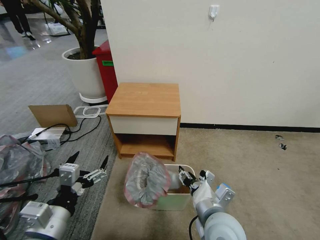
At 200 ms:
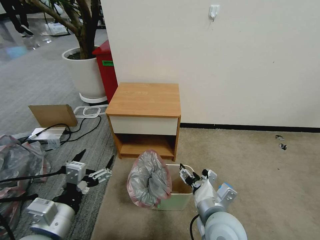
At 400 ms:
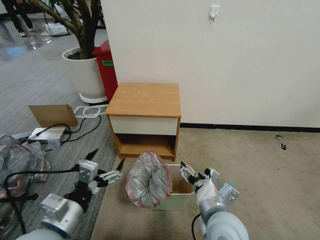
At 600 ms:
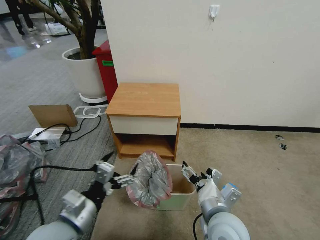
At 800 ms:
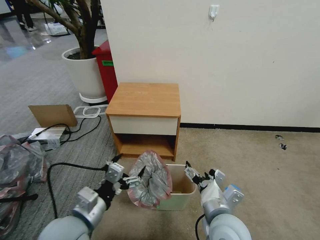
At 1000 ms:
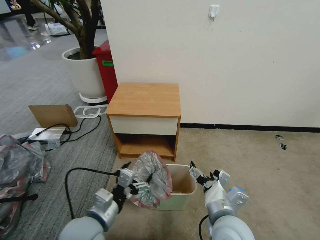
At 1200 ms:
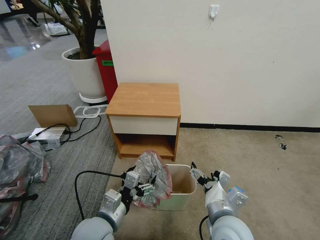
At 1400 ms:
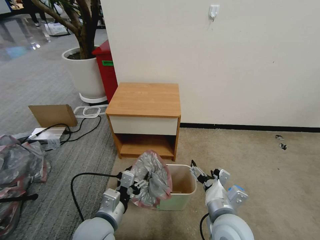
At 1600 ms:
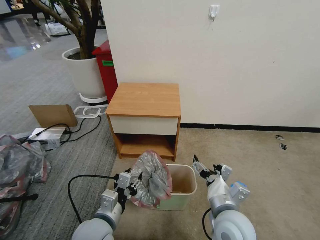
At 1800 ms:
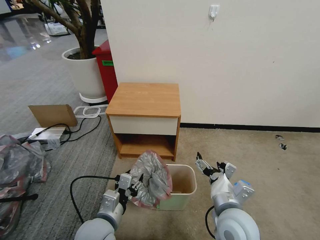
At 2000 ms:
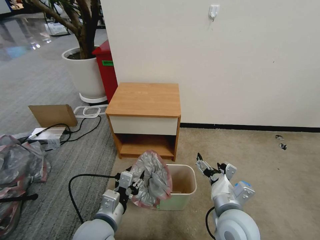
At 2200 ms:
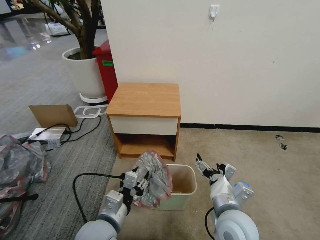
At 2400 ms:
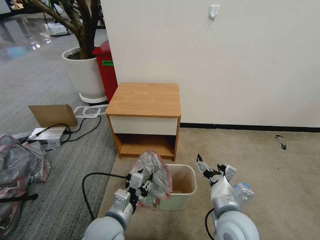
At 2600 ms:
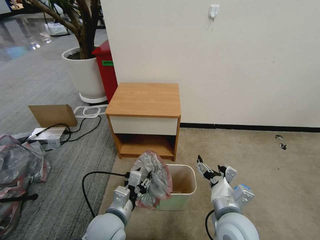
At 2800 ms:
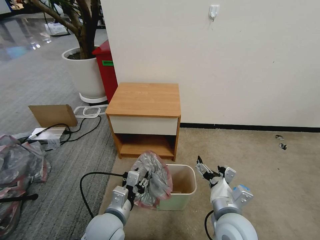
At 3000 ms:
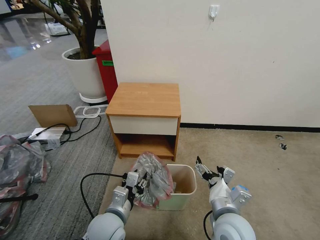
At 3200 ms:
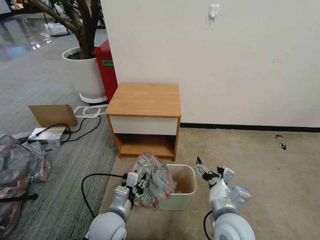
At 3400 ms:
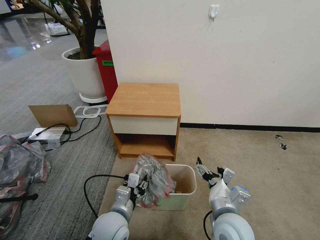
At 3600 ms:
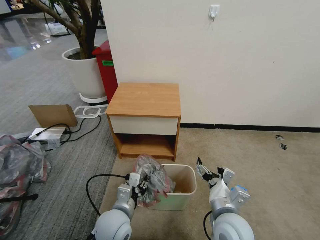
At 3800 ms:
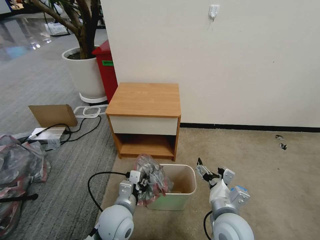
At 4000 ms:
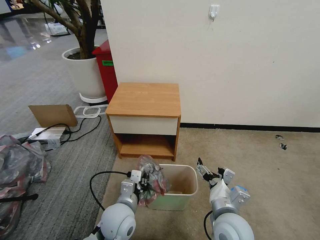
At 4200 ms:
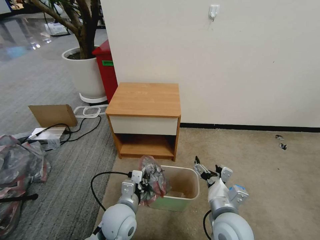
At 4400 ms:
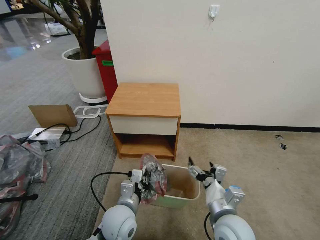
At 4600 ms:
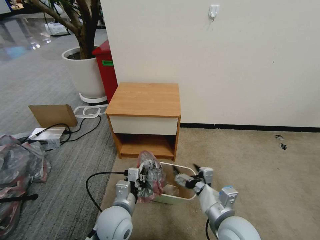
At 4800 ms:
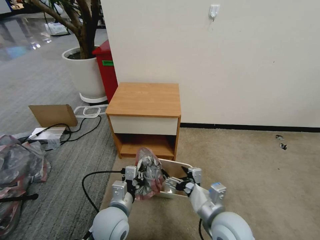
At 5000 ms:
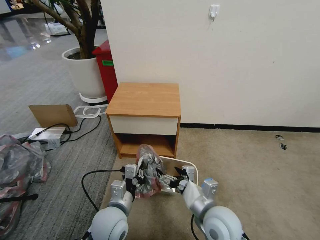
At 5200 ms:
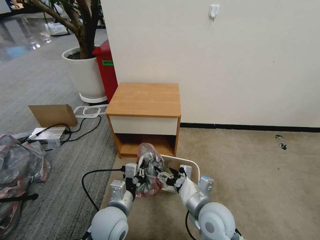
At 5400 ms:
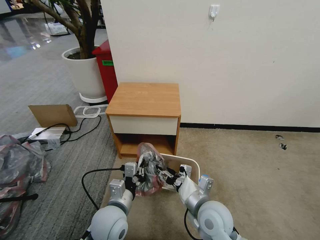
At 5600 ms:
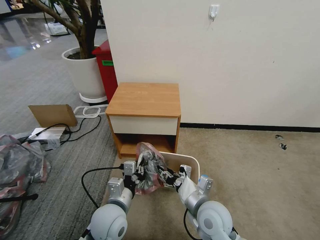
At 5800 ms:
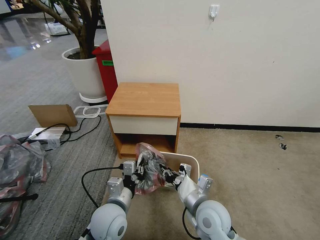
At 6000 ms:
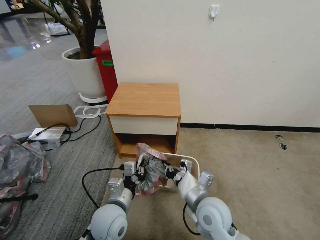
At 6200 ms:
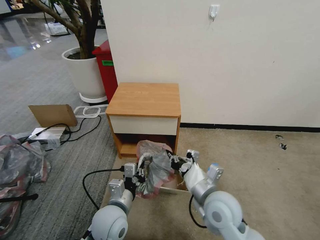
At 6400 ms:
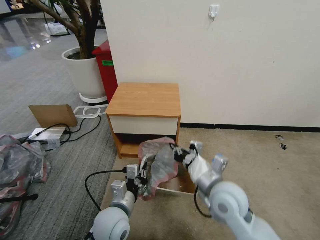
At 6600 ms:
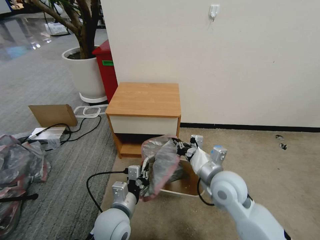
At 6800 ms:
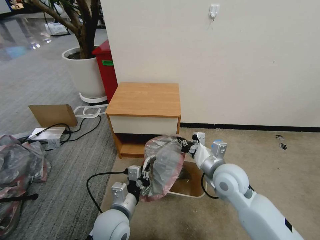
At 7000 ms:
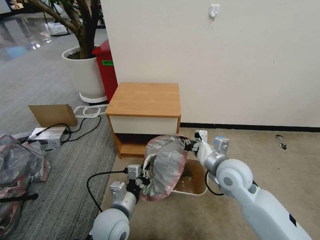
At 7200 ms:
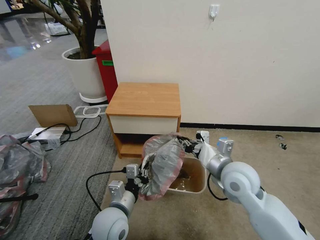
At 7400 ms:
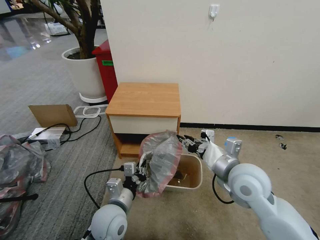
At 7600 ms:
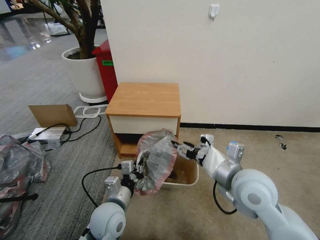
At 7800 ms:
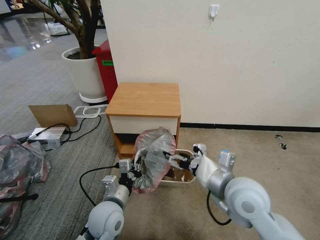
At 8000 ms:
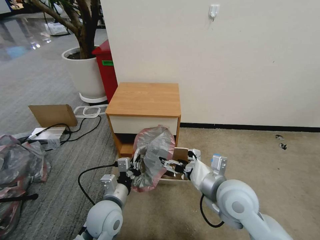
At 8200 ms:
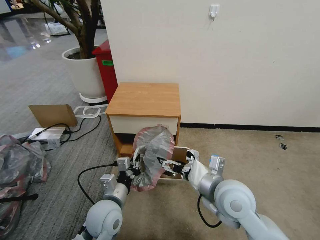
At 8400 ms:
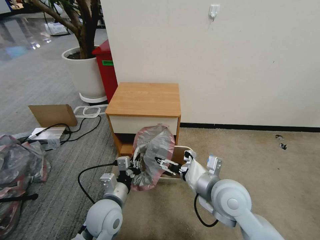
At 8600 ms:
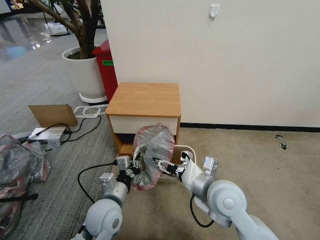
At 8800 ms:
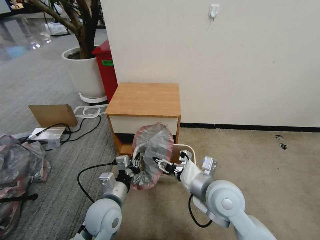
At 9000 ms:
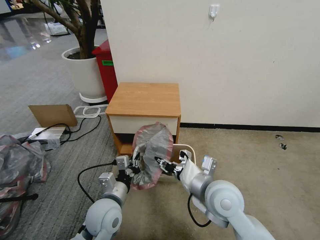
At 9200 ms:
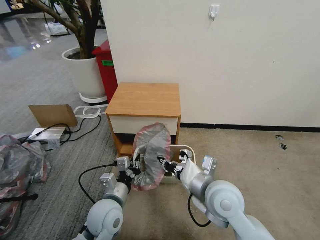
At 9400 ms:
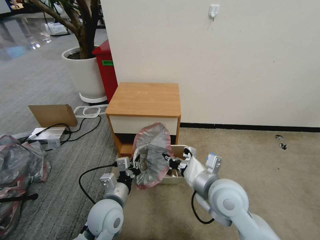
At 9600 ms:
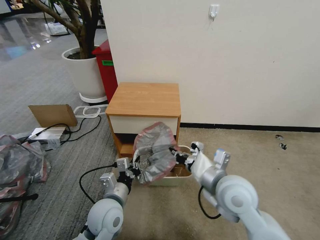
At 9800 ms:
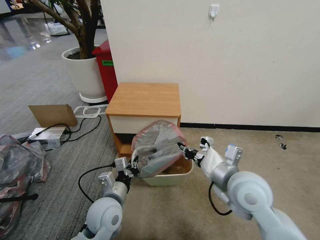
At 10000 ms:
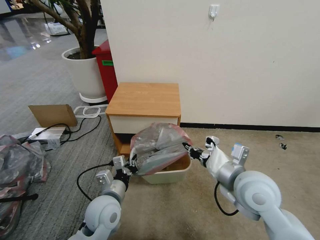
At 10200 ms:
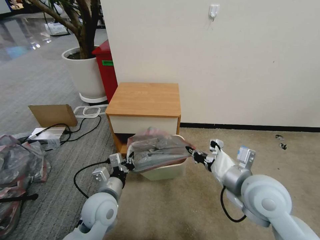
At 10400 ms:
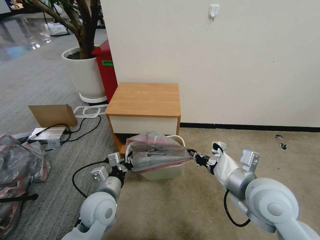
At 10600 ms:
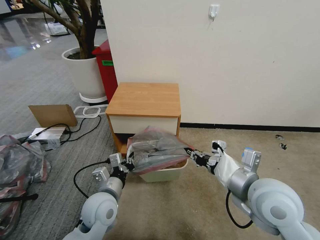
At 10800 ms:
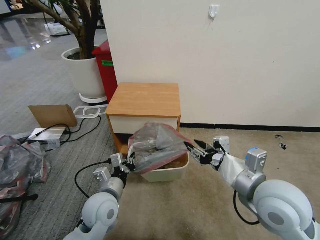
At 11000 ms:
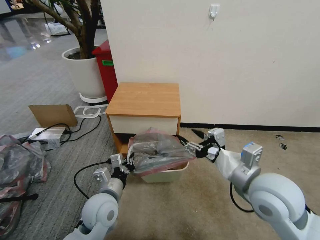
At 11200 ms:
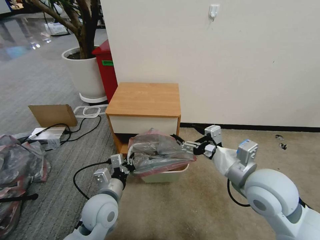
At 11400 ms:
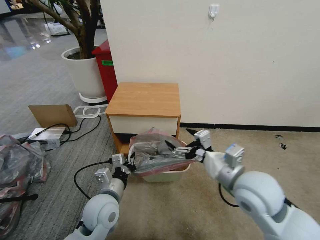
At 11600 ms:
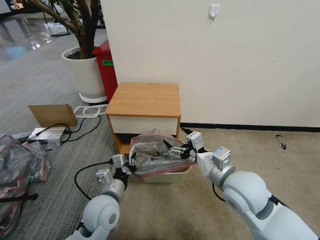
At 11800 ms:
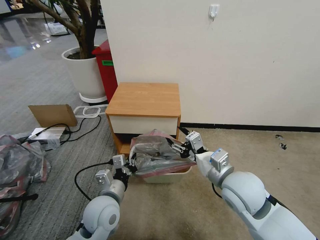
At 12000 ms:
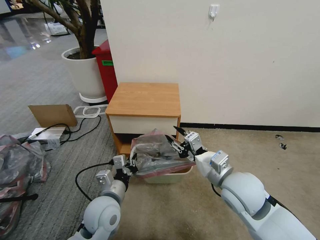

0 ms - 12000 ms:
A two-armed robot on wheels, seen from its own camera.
Task of the whole recording: Pick up the garbage bag from the table and place it over the trash can.
0 ms - 1600 ms: The left gripper heads to the right, downward and forward, covering about 15 cm, and closes its fingers. Meanwhile the right gripper opens its fingers.
1600 ms - 3000 ms: The grippers move only a little.
3000 ms - 4400 ms: The left gripper closes its fingers.
4400 ms - 6000 ms: The right gripper ends up about 5 cm from where it was, and closes its fingers.
6000 ms - 7600 ms: The right gripper heads upward and to the right, covering approximately 15 cm, and opens its fingers.
7600 ms - 9000 ms: The right gripper shifts some 5 cm to the left, and opens and closes again.
9000 ms - 10400 ms: The right gripper shifts about 10 cm to the right and upward.
10400 ms - 12000 ms: The right gripper changes place by roughly 5 cm, and opens its fingers.

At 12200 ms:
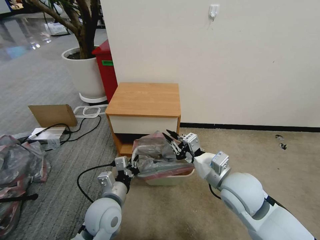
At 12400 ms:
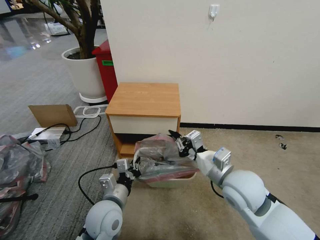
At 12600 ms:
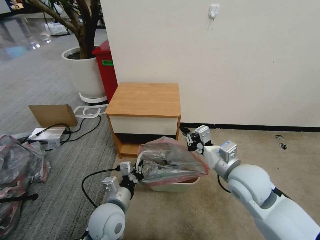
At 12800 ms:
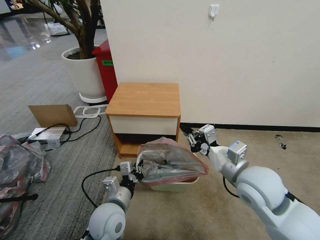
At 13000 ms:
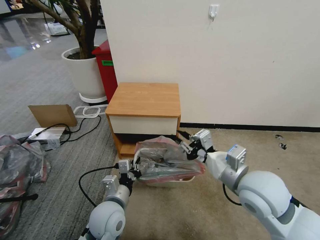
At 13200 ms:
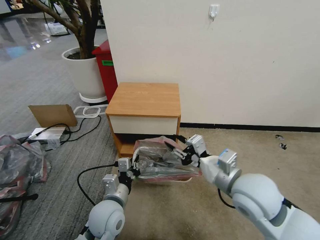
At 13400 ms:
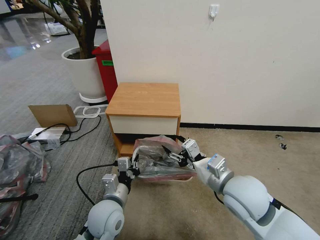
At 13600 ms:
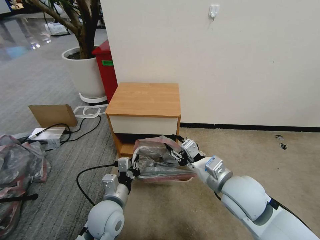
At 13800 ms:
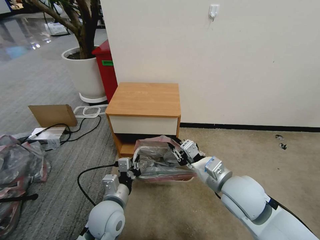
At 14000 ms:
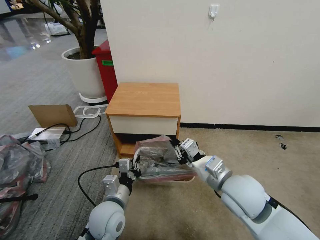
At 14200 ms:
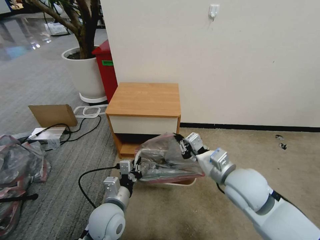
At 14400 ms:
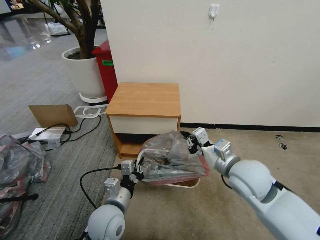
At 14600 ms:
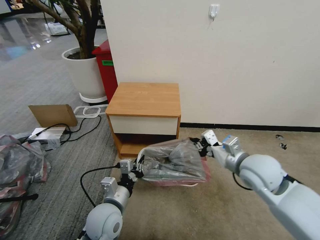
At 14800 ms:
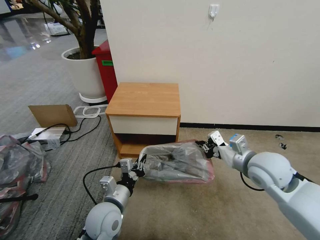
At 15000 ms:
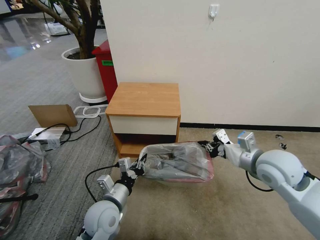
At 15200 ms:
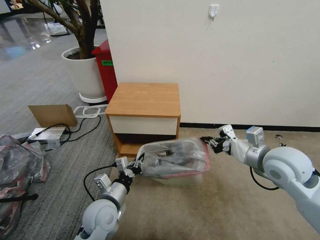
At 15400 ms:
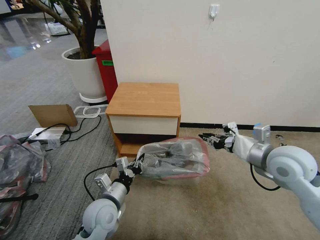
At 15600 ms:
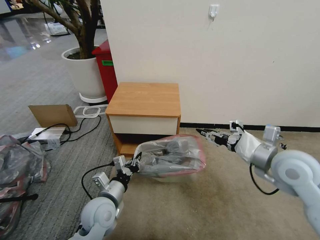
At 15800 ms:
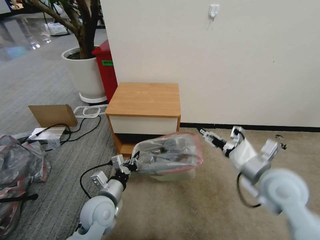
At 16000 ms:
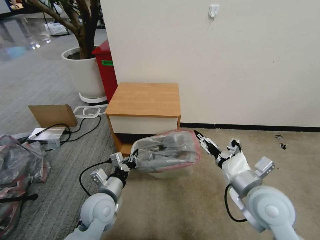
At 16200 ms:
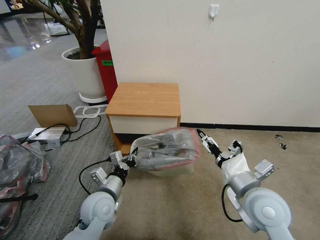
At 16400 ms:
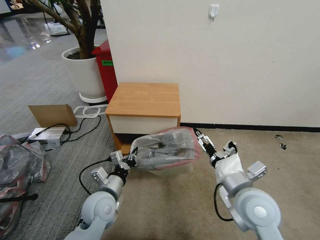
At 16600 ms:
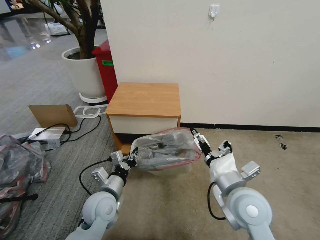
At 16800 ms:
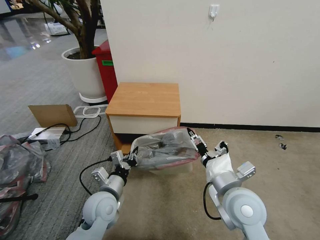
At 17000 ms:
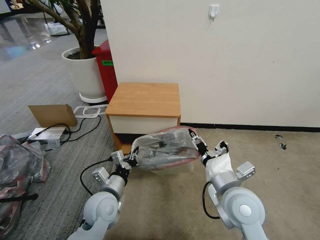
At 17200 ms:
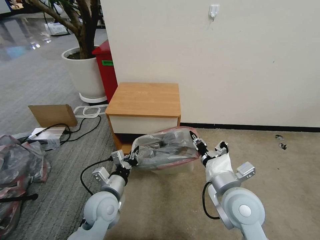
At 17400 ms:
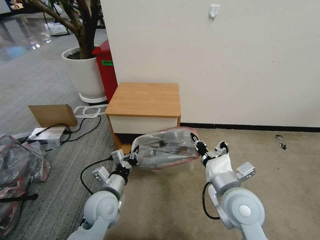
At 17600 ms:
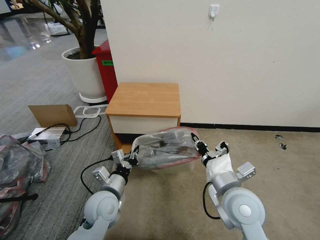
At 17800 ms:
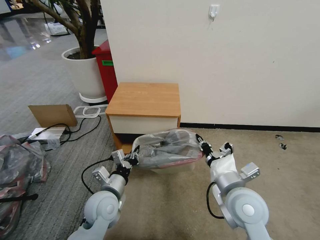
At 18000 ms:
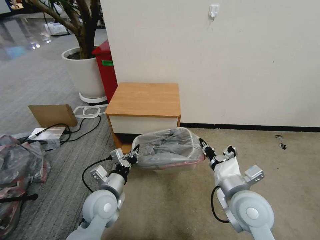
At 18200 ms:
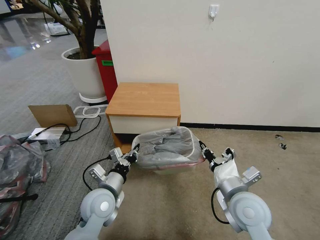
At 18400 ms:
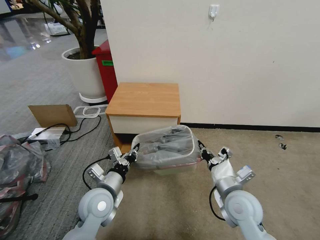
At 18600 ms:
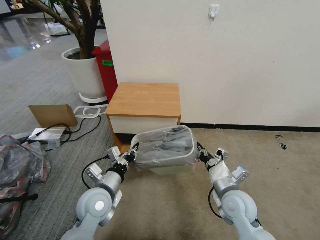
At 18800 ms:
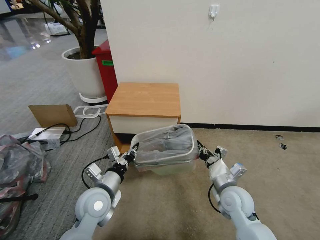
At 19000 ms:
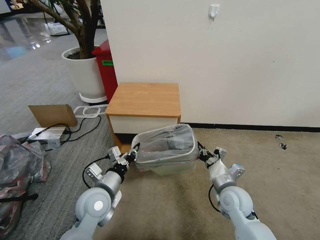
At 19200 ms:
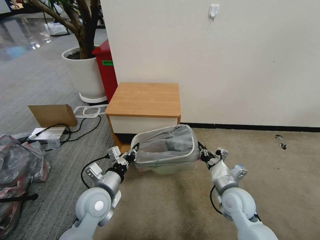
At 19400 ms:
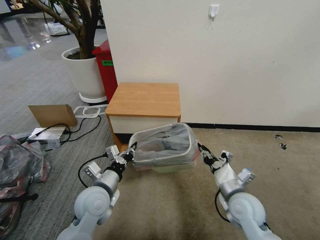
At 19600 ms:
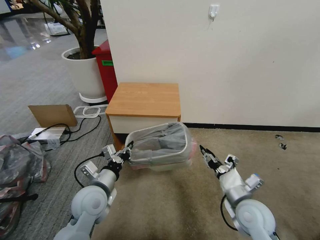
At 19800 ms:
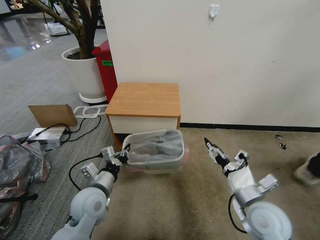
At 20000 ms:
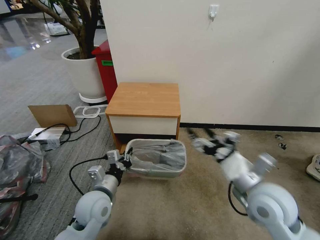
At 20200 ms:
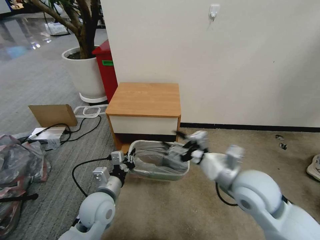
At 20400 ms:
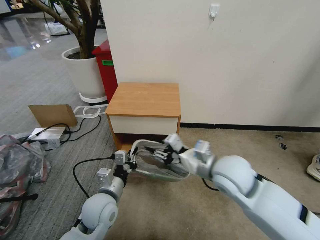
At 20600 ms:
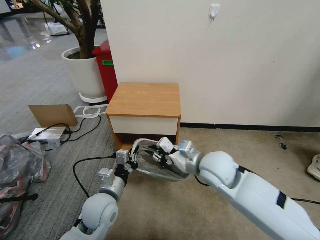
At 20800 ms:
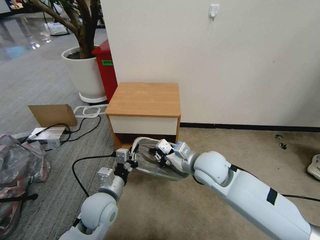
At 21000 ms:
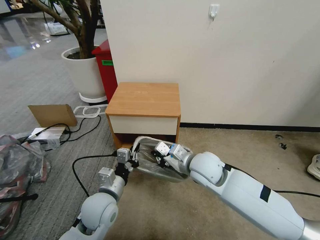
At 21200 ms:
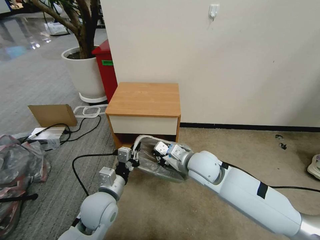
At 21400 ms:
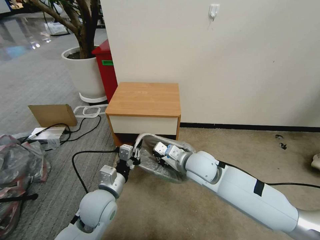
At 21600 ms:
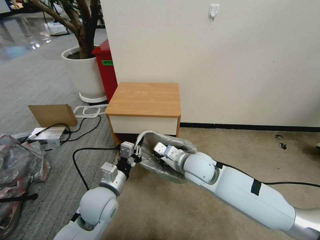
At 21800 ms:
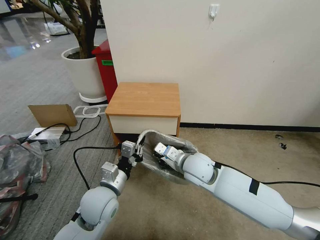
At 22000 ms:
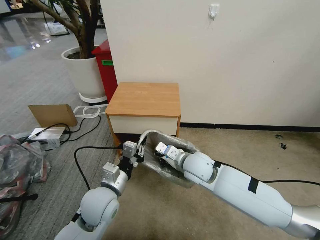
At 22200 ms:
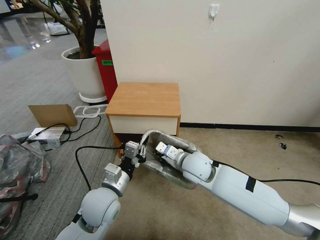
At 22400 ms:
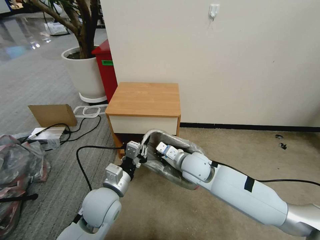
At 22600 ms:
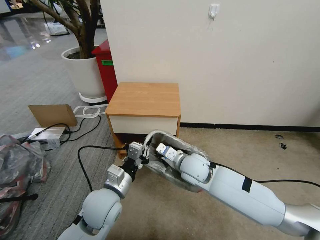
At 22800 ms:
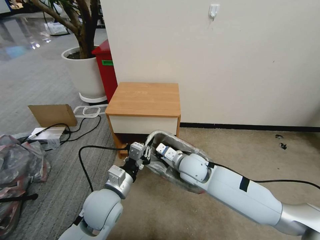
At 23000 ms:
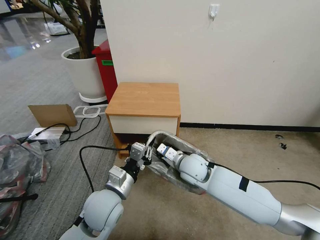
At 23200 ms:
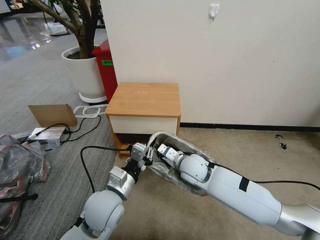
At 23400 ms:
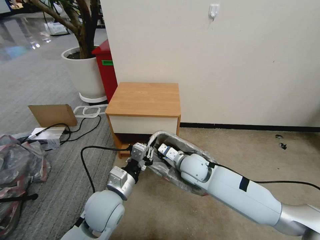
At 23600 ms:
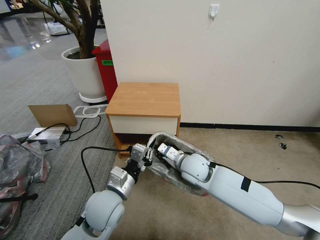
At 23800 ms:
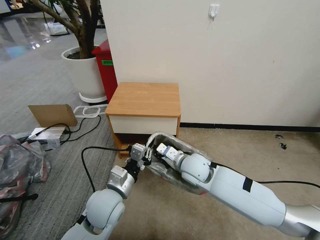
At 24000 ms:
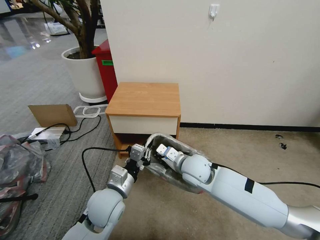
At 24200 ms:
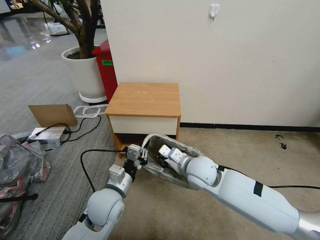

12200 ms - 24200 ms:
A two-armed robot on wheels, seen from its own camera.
Task of the whole recording: Pick up the garbage bag from the table and place it over the trash can.
12200 ms - 13800 ms: The right gripper opens, then closes once more.
13800 ms - 15200 ms: The right gripper is displaced to the right and forward by about 15 cm.
15200 ms - 16600 ms: The right gripper moves to the left, backward and downward, about 15 cm, and opens its fingers.
16600 ms - 18200 ms: The right gripper closes up.
18200 ms - 19800 ms: The right gripper goes downward and returns, some 10 cm each way, and opens.
19800 ms - 21200 ms: The right gripper goes approximately 20 cm to the left and forward, and closes.
21200 ms - 22600 ms: The right gripper moves about 5 cm.
22600 ms - 24200 ms: There are only small adjustments of the grippers.
